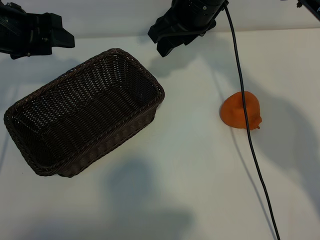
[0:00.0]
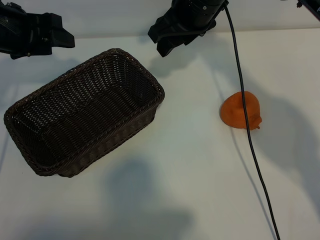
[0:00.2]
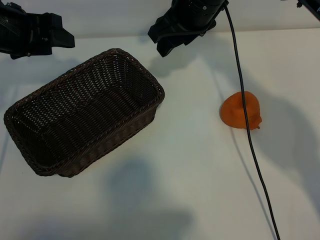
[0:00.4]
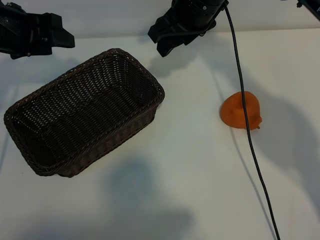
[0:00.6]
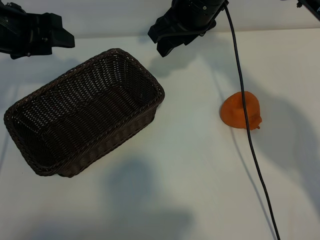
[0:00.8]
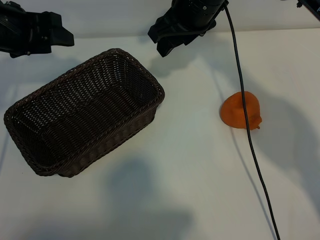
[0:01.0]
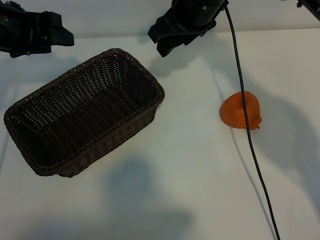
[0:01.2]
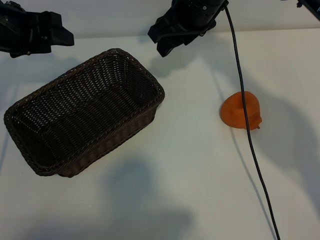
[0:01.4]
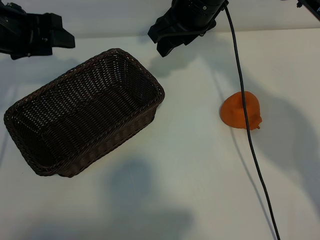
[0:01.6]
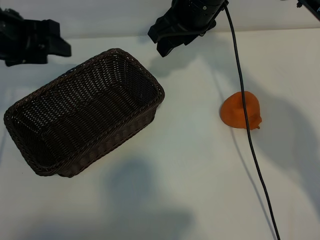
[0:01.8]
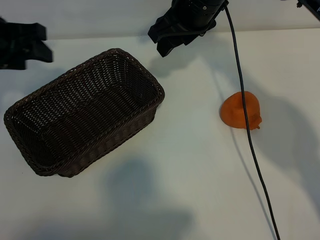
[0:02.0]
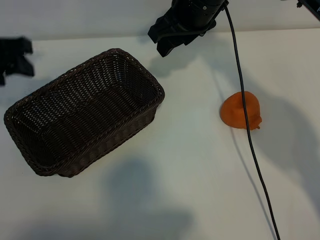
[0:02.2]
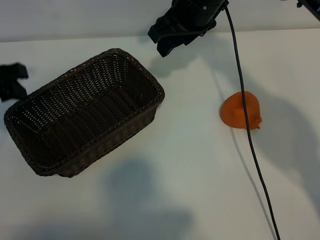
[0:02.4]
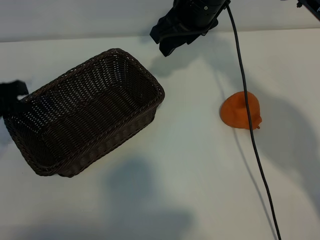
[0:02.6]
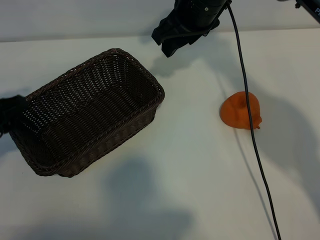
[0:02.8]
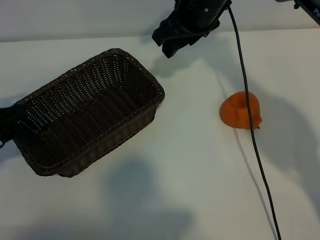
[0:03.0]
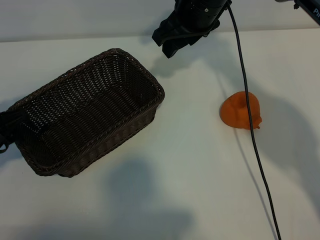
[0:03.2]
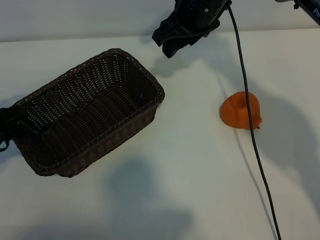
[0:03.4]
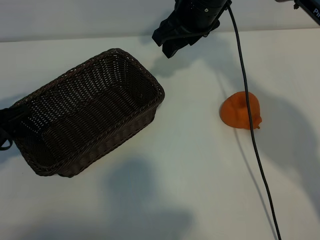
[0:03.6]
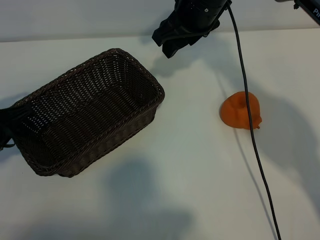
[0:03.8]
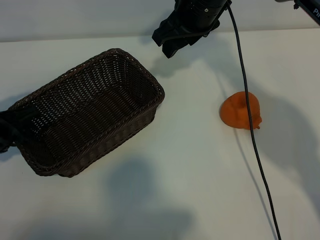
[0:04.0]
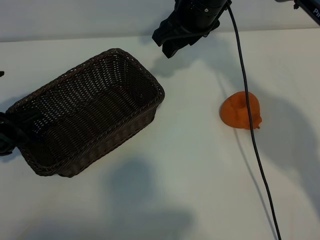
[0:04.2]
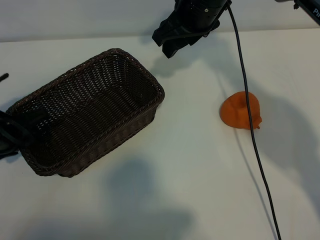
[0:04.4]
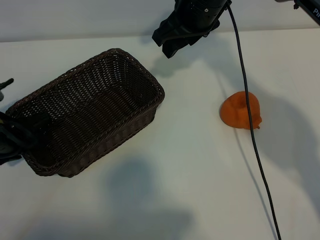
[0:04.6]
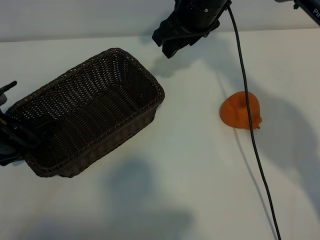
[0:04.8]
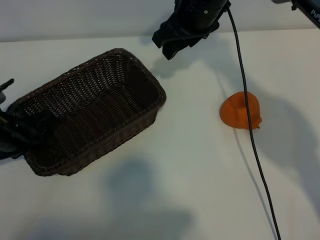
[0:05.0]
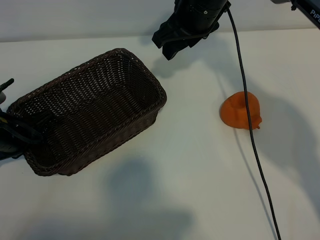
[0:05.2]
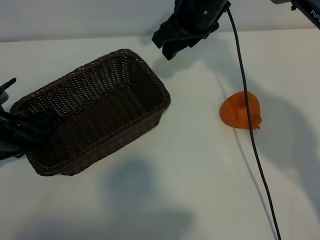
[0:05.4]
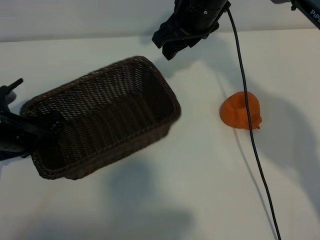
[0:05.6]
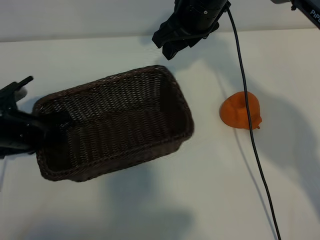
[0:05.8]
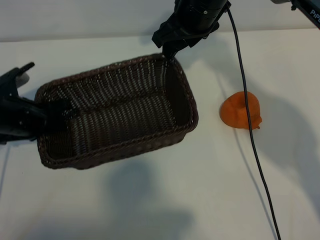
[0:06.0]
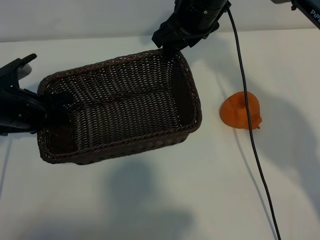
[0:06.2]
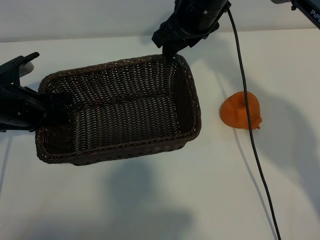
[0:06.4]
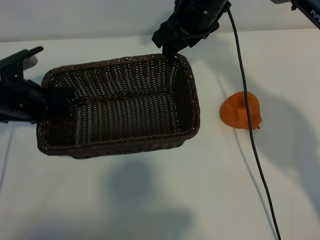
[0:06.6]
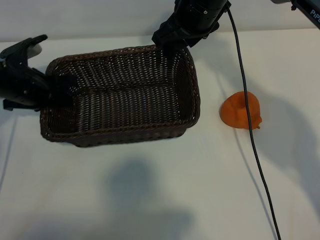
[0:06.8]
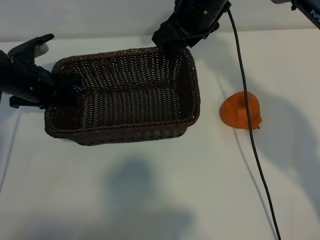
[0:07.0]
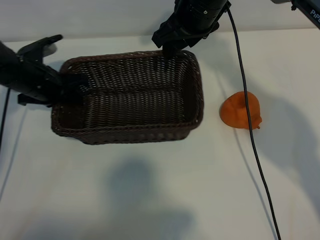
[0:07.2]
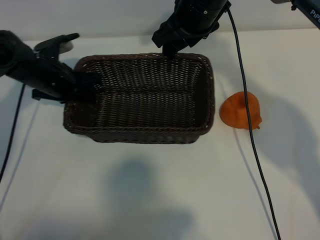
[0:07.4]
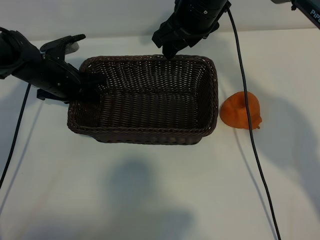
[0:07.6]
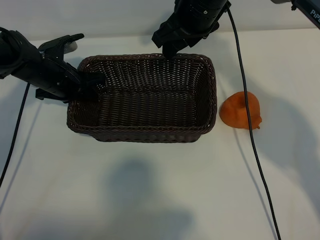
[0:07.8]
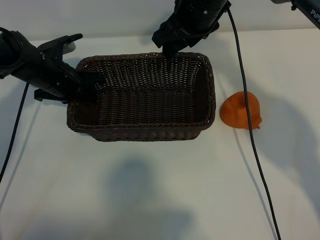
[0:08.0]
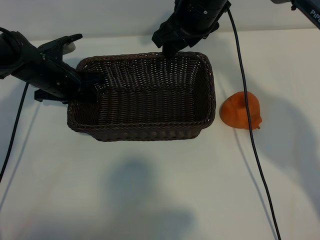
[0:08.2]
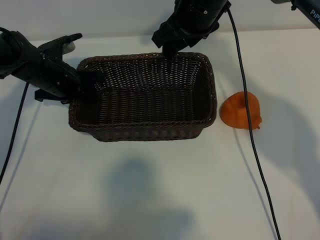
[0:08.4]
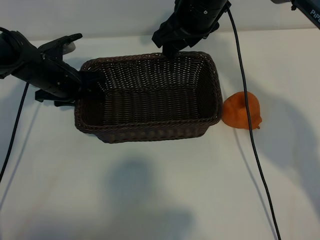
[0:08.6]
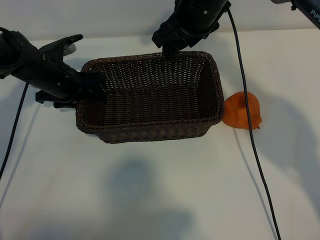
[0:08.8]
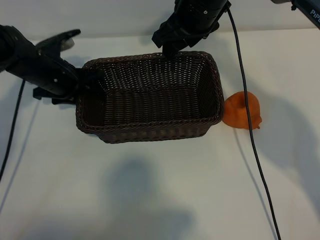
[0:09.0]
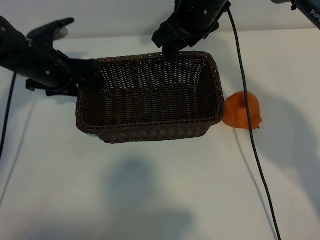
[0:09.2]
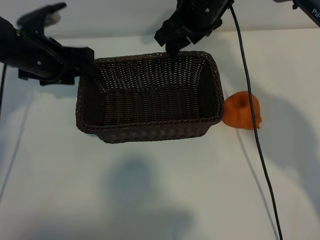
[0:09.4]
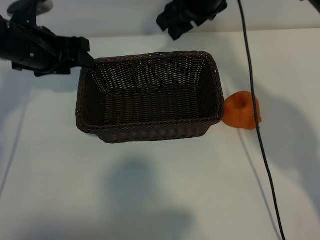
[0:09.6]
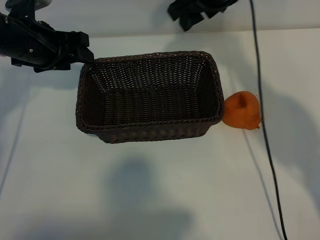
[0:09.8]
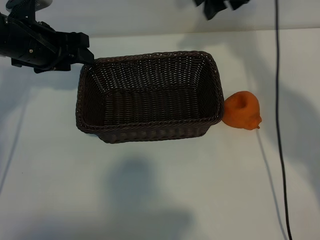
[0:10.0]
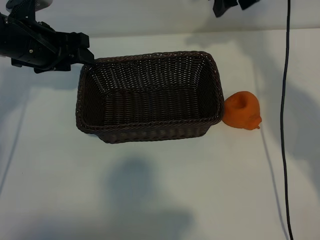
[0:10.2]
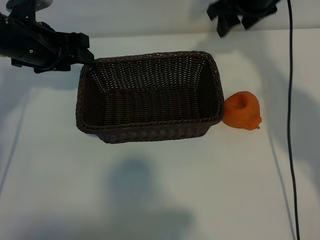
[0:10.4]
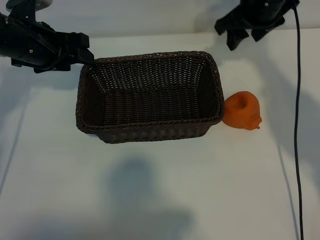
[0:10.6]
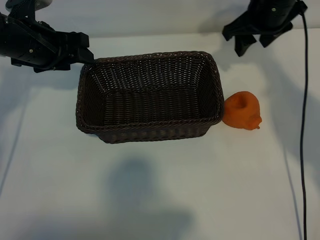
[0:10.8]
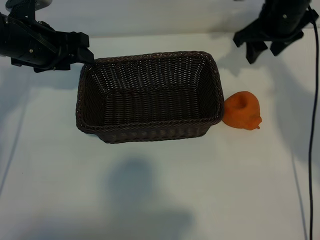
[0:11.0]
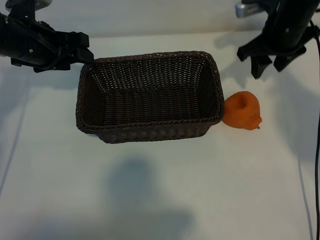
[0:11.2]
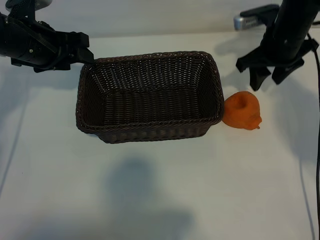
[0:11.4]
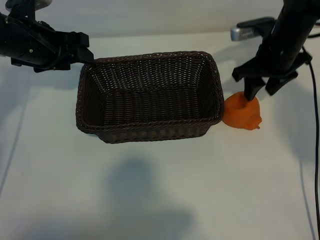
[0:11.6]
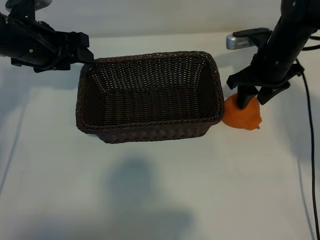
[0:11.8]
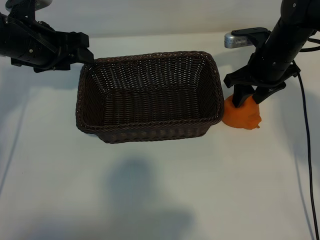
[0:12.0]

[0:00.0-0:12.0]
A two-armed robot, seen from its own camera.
Task of the whole recording: pick up the orange and put it into the basket.
Step, 0:01.0 to 0:05.0: Grasp the basket with left gripper.
Step, 0:05.2 to 0:08.6: Place the basket in the center of view with left gripper.

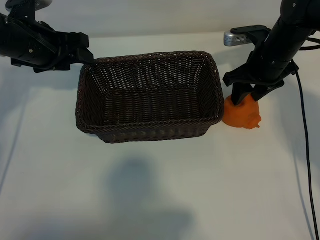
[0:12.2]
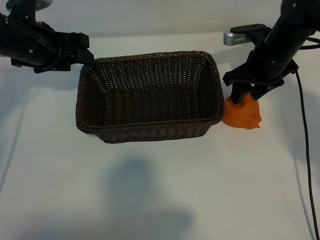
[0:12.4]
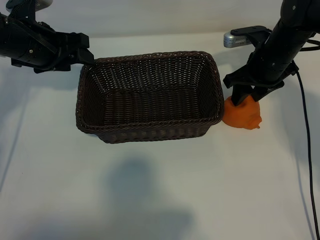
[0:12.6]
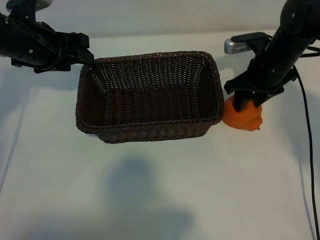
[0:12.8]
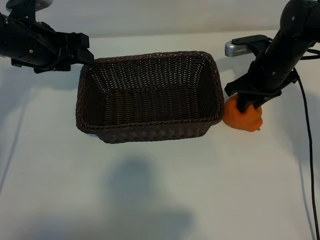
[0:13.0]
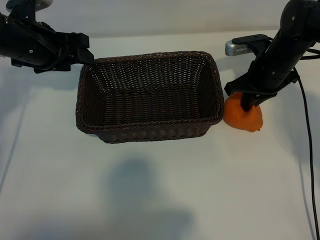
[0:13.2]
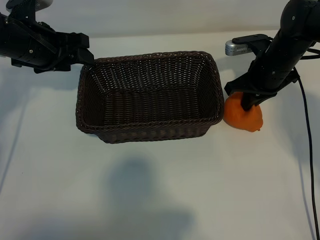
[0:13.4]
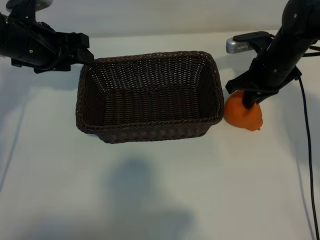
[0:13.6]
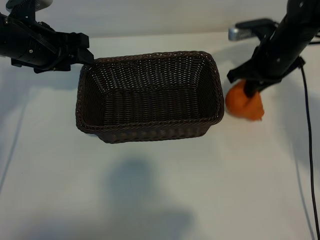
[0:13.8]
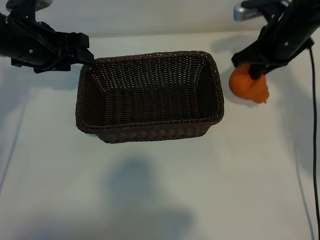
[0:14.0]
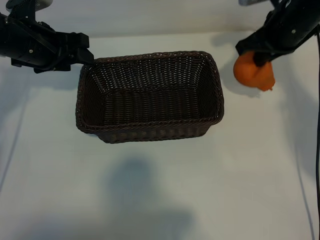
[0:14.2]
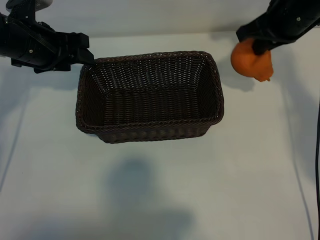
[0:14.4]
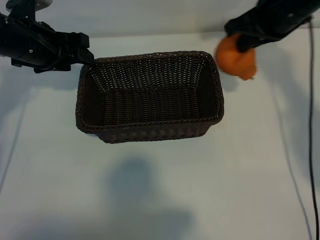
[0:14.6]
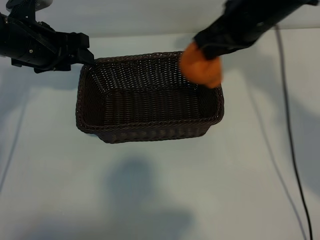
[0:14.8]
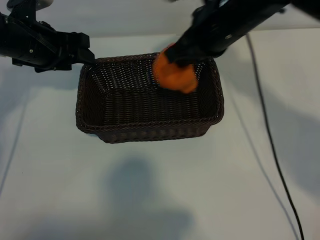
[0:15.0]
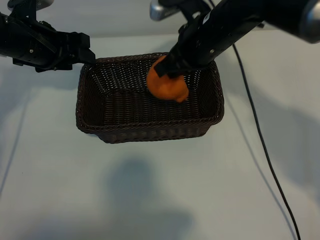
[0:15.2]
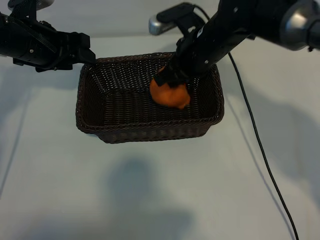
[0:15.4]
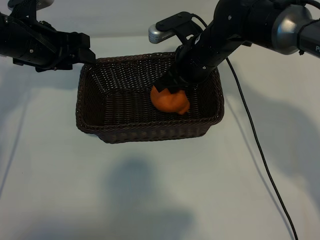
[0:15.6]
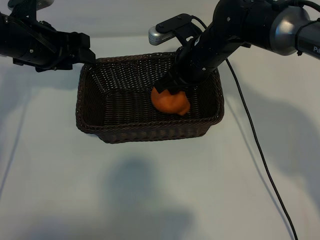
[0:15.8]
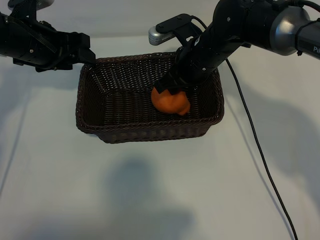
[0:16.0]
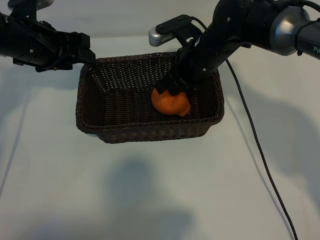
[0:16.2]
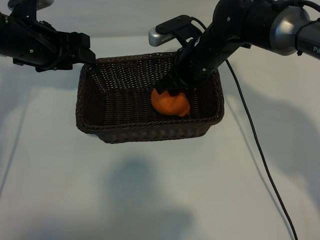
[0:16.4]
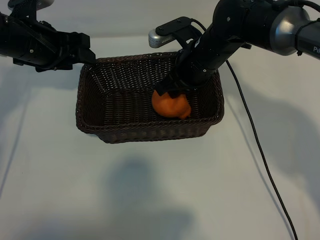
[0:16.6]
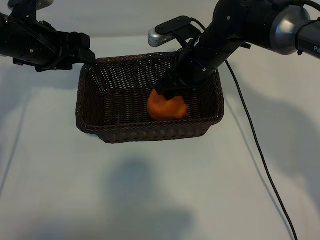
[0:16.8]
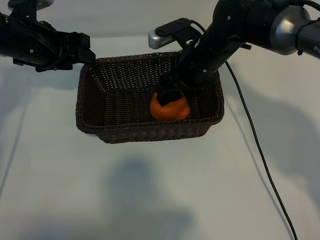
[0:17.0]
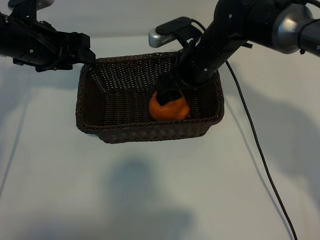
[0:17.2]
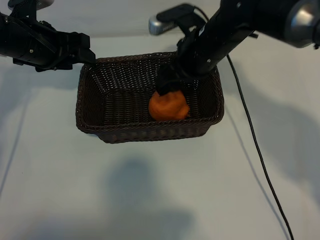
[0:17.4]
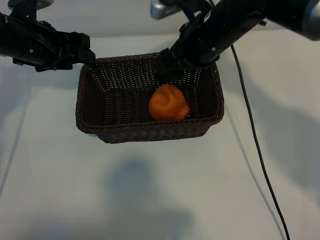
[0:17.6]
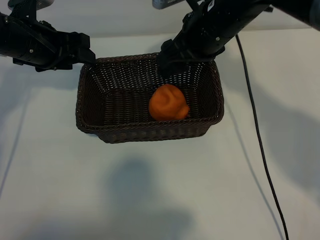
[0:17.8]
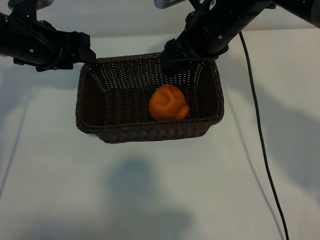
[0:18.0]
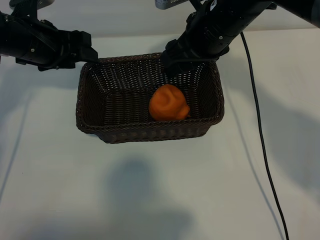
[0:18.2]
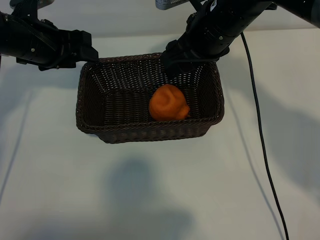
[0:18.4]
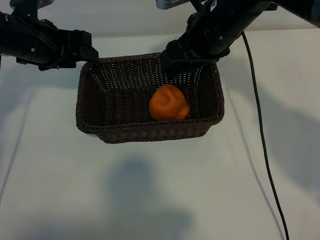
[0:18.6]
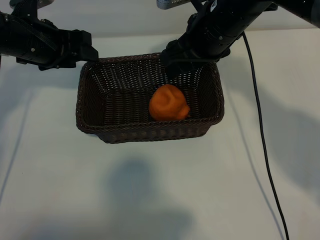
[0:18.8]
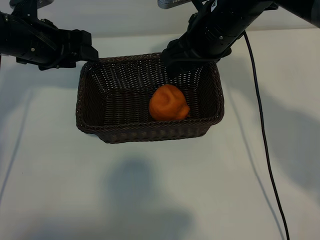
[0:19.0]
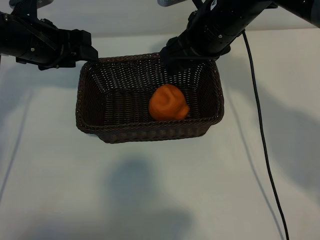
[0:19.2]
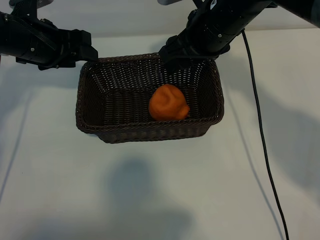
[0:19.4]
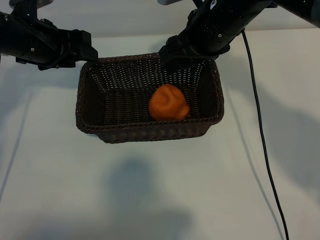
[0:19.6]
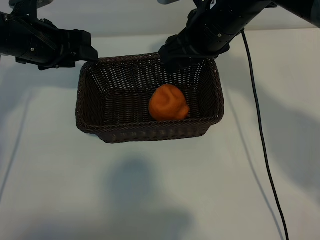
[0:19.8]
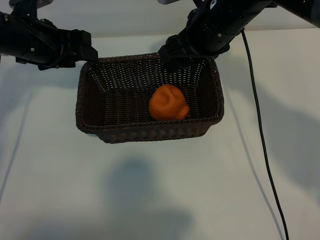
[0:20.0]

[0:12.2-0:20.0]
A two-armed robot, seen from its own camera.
Task of the whole recording: pick up the orange and put it into the basket.
Step, 0:13.4 to 0:16.8: Place the orange in the basket with right gripper.
